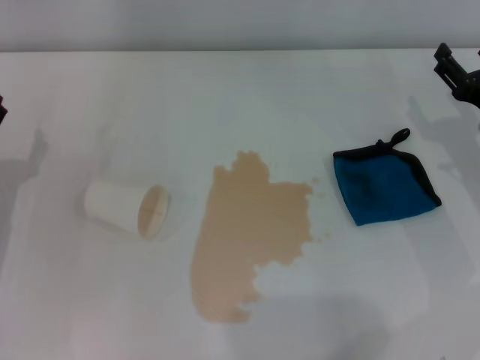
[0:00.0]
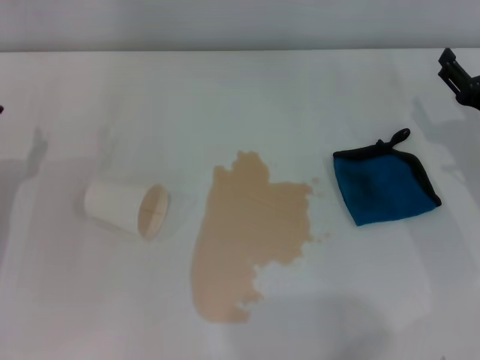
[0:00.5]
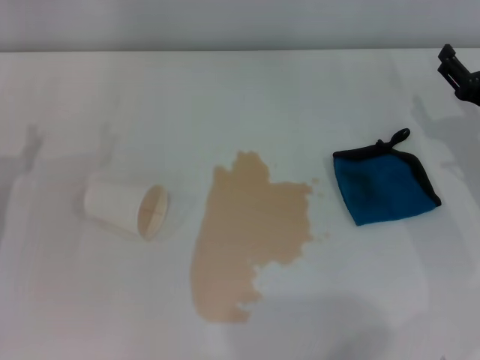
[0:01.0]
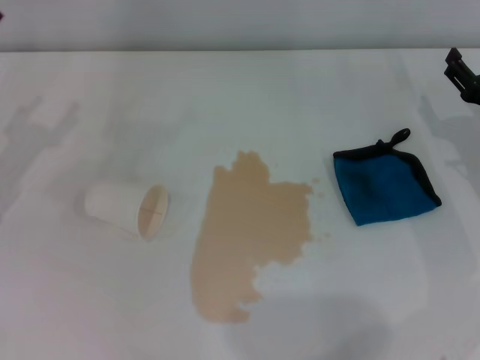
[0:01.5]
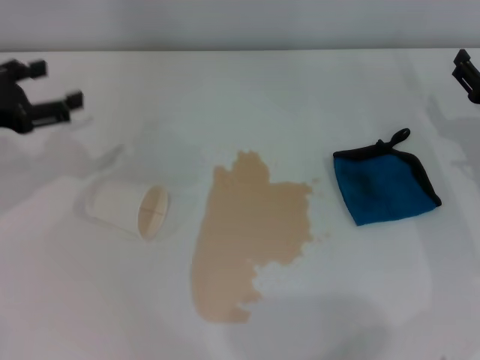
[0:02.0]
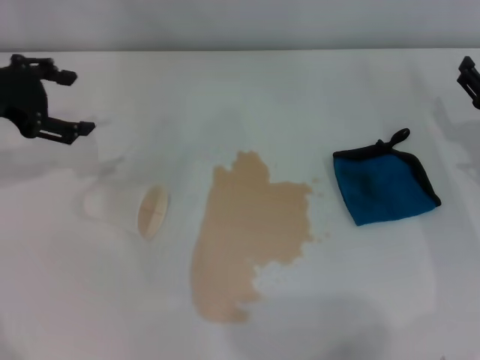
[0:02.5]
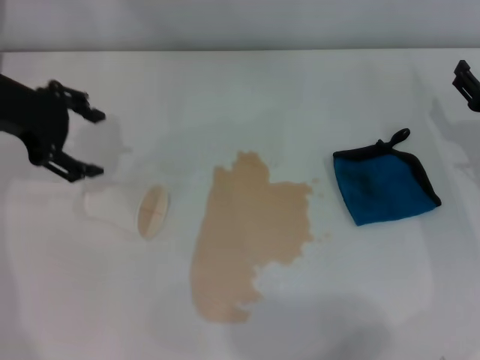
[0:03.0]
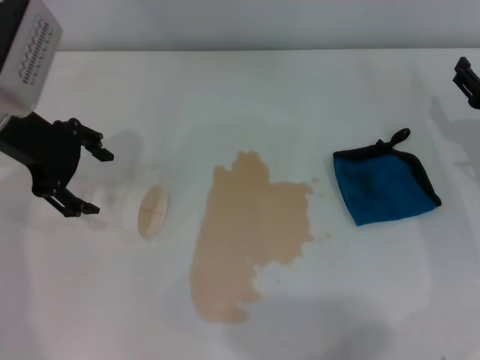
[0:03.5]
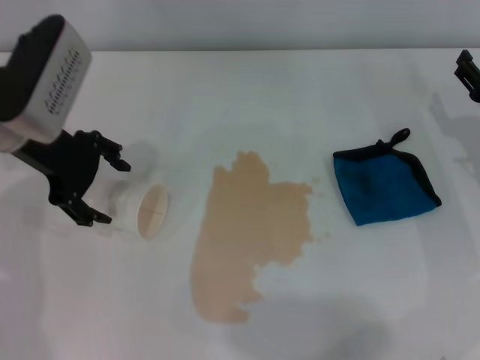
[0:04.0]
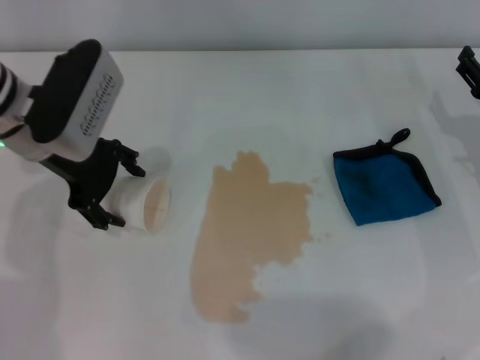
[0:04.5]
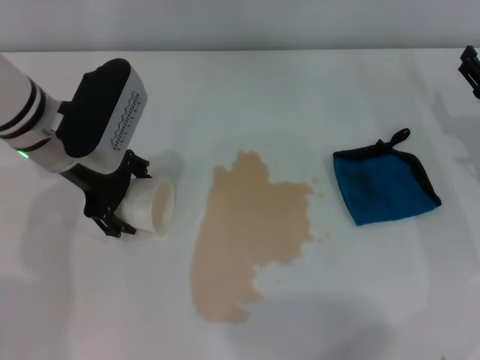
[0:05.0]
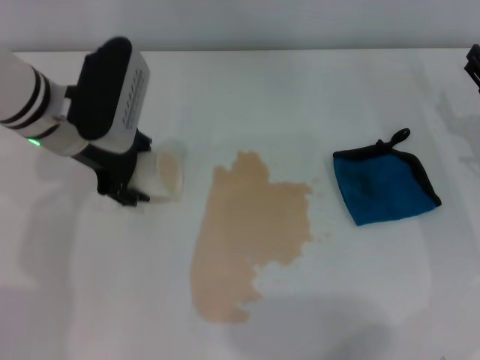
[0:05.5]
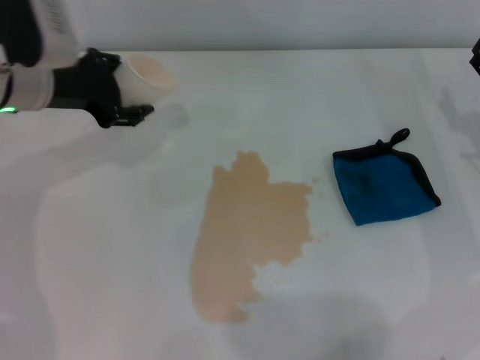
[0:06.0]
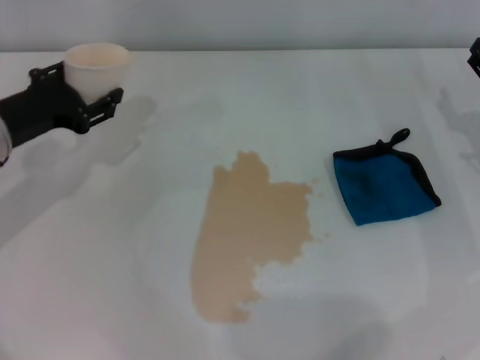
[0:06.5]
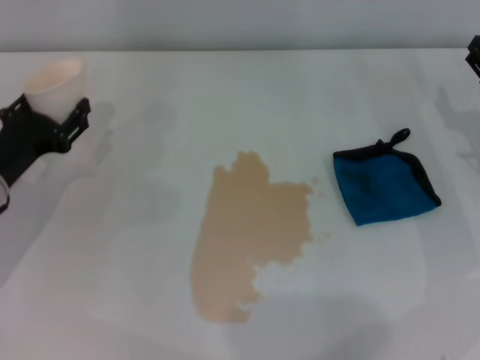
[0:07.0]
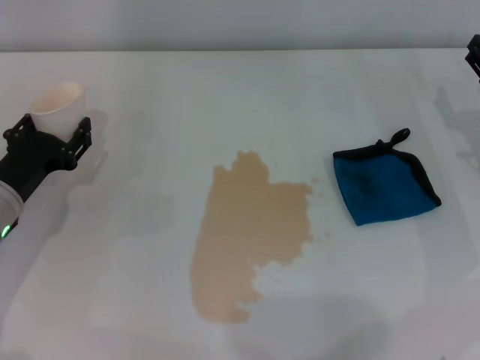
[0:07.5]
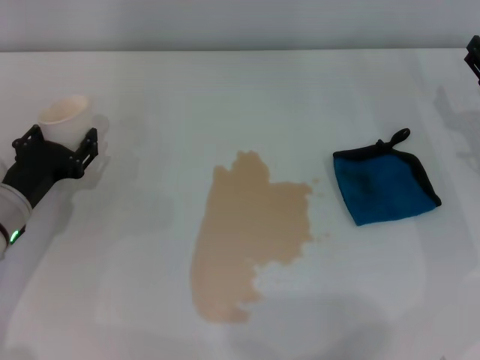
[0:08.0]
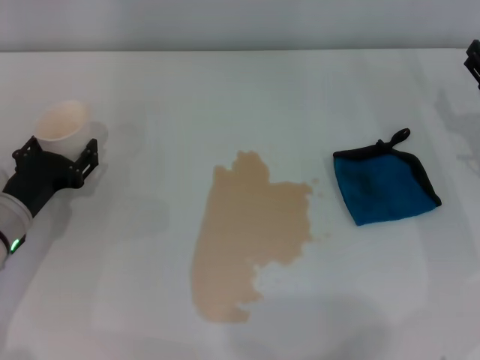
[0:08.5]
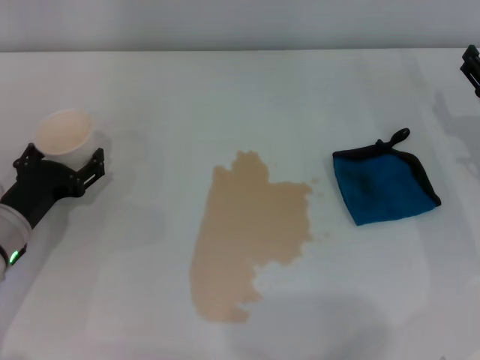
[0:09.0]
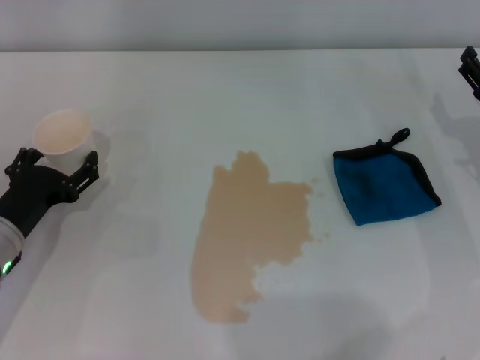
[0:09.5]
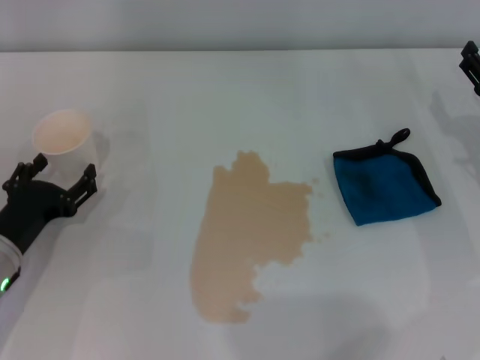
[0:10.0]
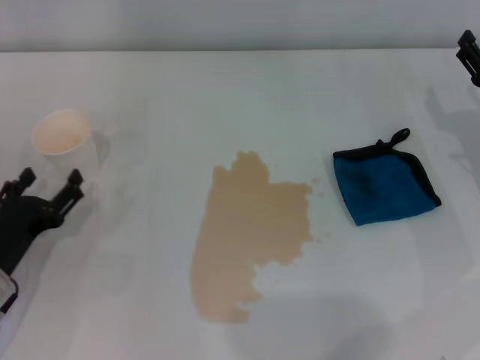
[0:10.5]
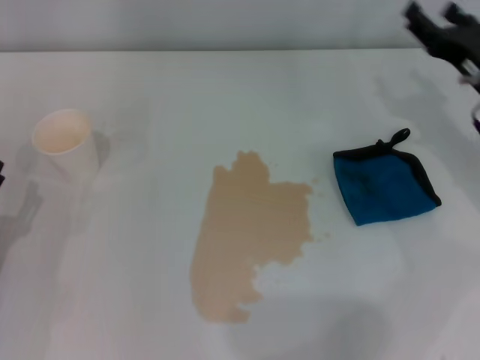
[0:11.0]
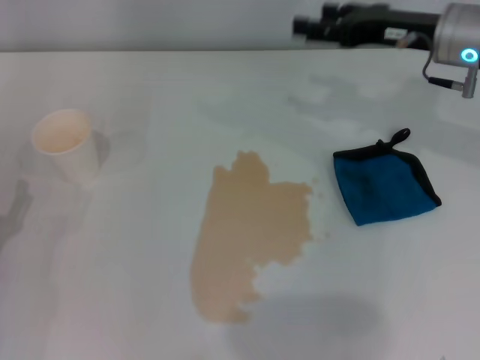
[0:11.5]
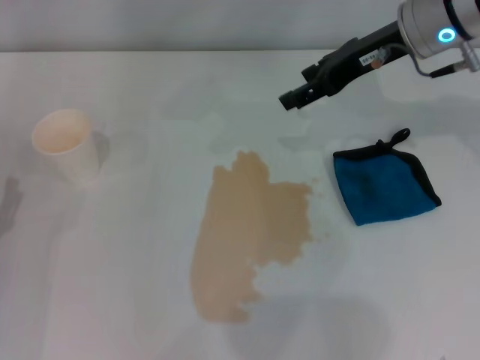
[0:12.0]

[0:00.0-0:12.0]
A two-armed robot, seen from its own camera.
Step, 0:00.0 to 0:05.0: Grasp the paper cup with the left gripper.
Step, 0:05.5 to 0:08.5: Stand the paper cup upright with the left gripper.
0:00.0 to 0:02.0: The left gripper heads upward and forward, covering roughly 10 cm.
0:02.0 to 0:04.0: The left gripper moves to the right, about 10 cm.
0:04.0 to 0:06.0: The left gripper closes up.
0:06.0 to 0:08.0: The left gripper shifts approximately 15 cm downward and backward.
0:08.0 to 0:10.0: The left gripper changes place by approximately 5 cm, and opens up.
0:10.0 to 0:12.0: The right gripper travels upward, to the left and forward by some 20 cm; the left gripper is displaced backward by about 5 cm.

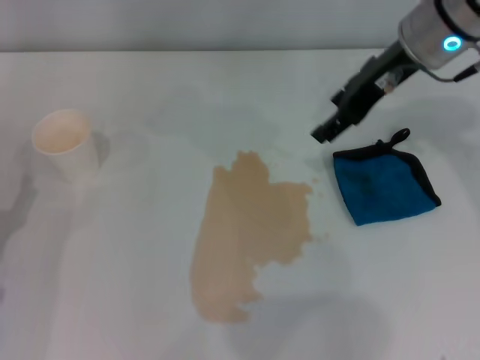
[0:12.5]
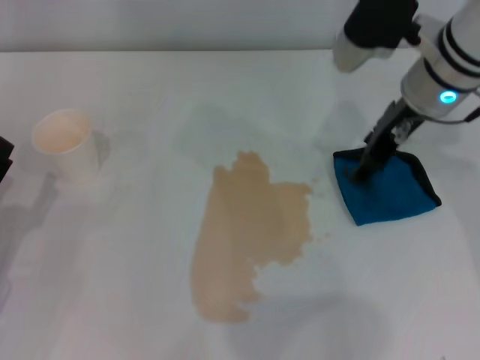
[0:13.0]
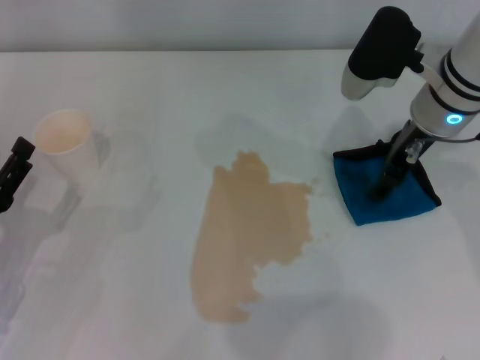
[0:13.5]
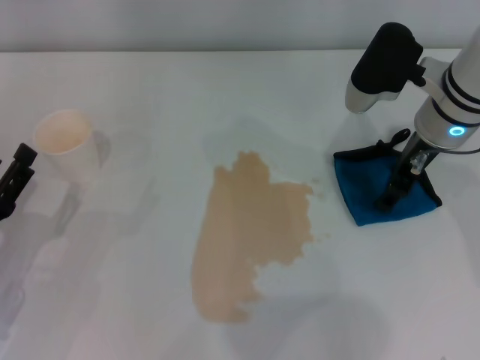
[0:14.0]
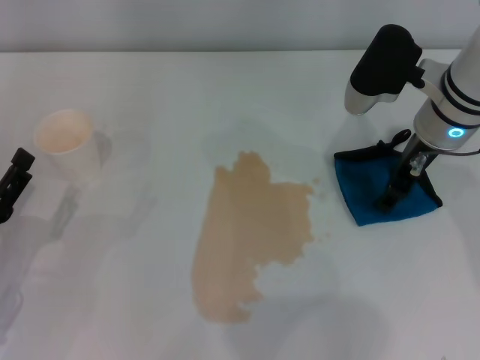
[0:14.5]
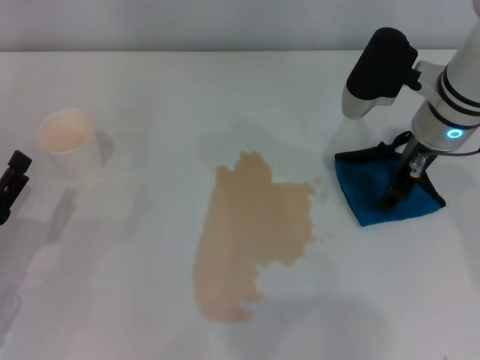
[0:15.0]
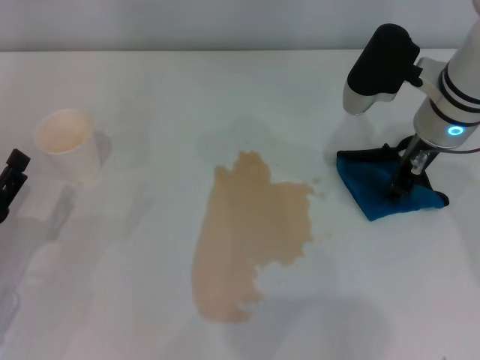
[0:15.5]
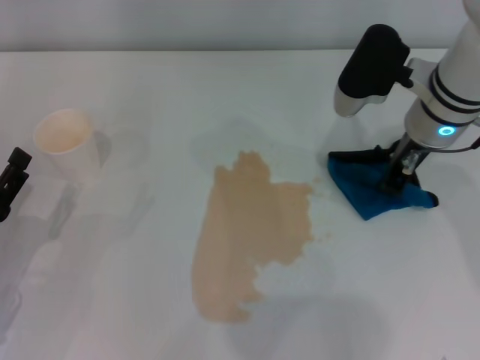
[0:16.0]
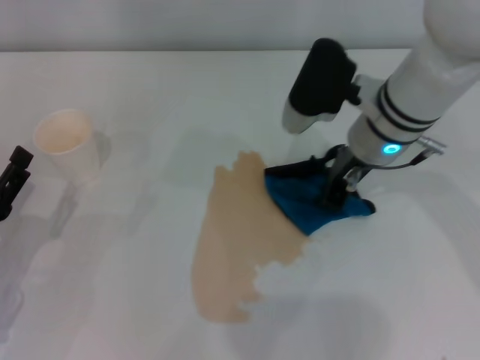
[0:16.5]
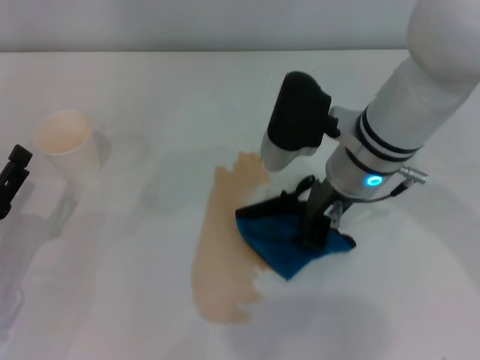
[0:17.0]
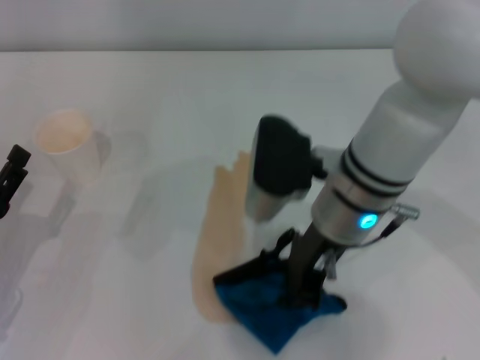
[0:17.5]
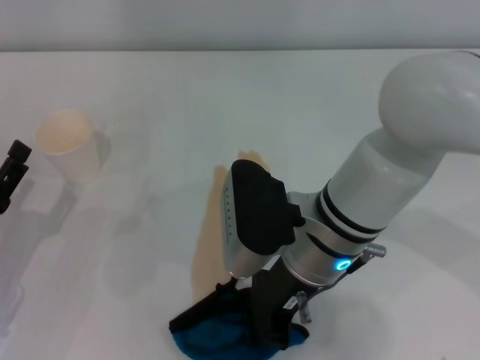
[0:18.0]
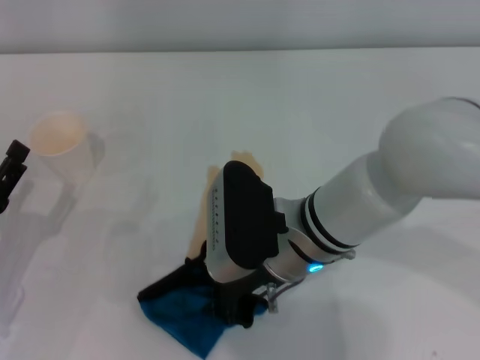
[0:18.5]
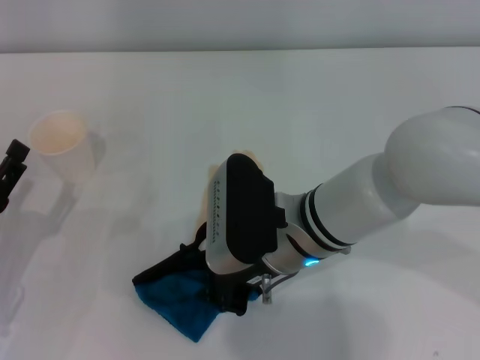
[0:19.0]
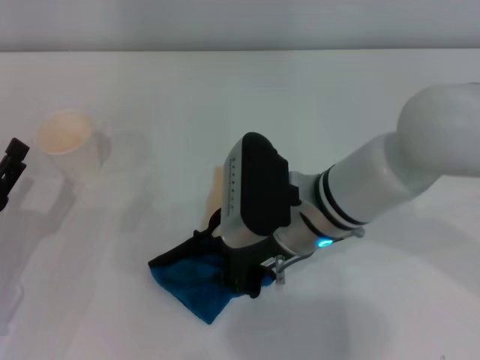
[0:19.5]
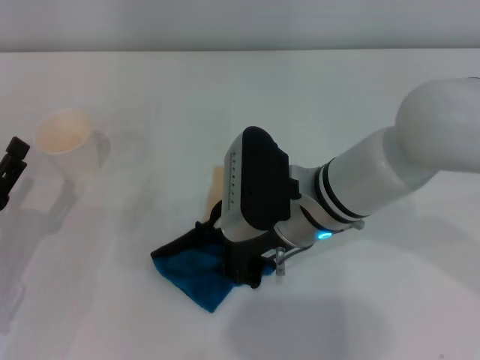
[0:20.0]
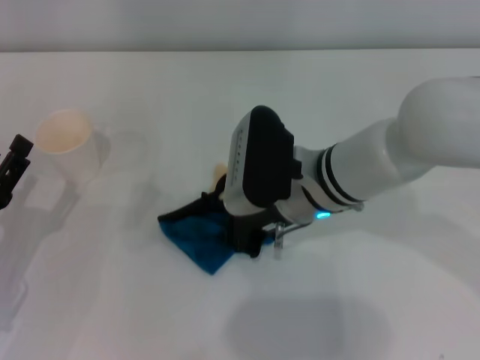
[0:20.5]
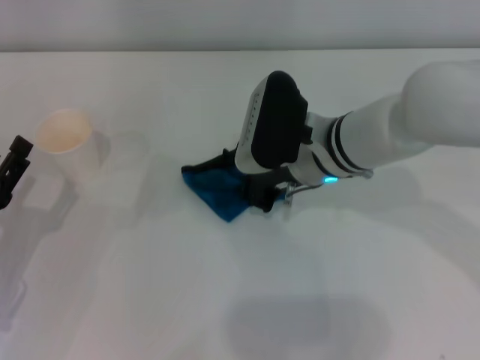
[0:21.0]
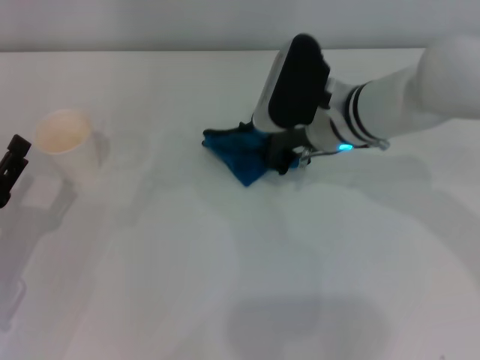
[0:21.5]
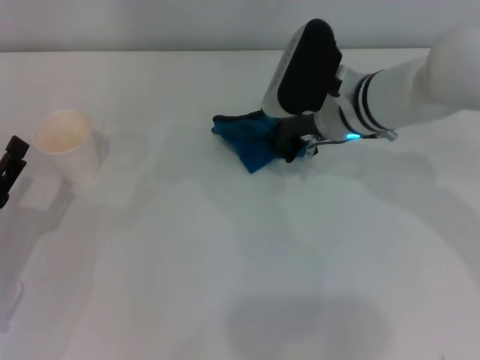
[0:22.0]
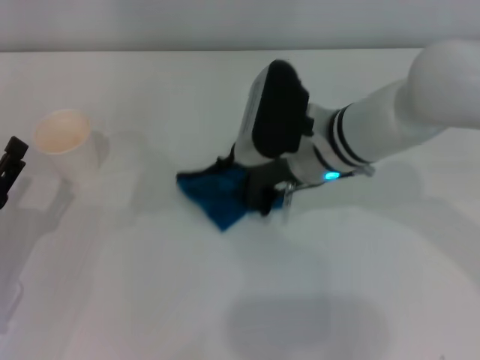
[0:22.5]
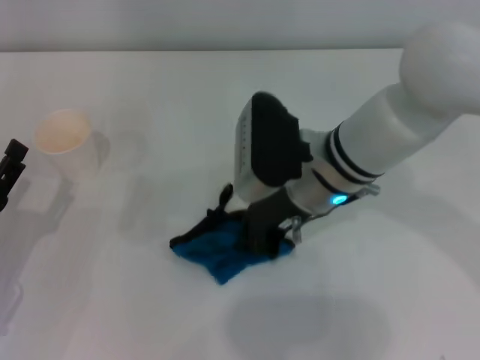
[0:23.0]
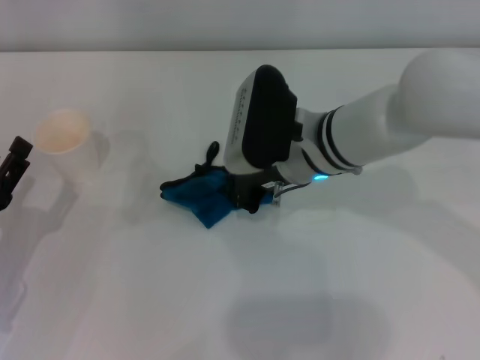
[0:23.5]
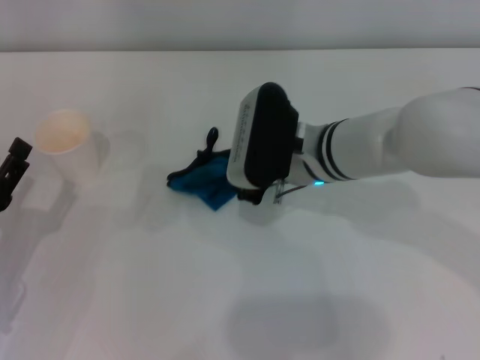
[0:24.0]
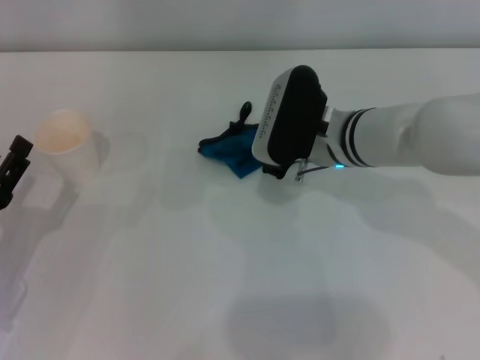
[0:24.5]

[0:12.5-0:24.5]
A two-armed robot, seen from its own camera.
Step, 0:12.5 to 0:15.5: Grasp the rag with the right gripper.
0:12.5 to 0:14.5: The right gripper heads downward, covering about 10 cm.
0:14.5 to 0:16.5: The right gripper moves to the left, approximately 5 cm, and closes up.
0:16.5 to 0:18.5: The right gripper is displaced backward and to the left by some 15 cm.
0:18.5 to 0:20.5: The right gripper shifts by some 5 cm.
0:22.5 to 0:24.5: The grippers make only small movements.

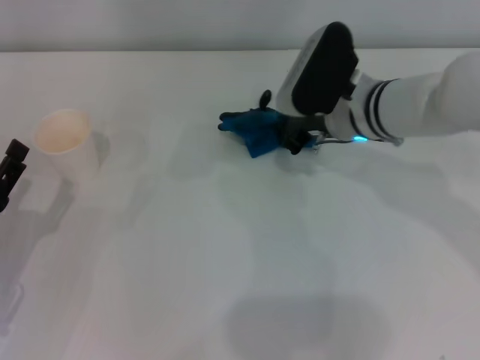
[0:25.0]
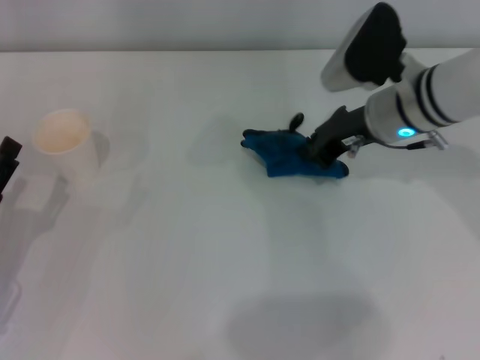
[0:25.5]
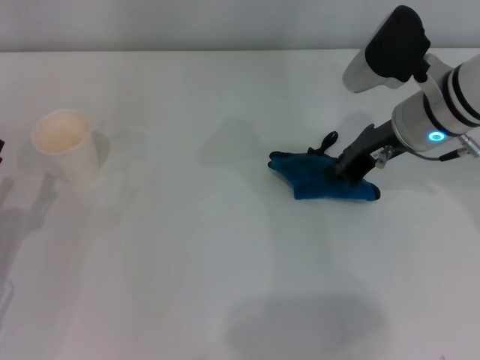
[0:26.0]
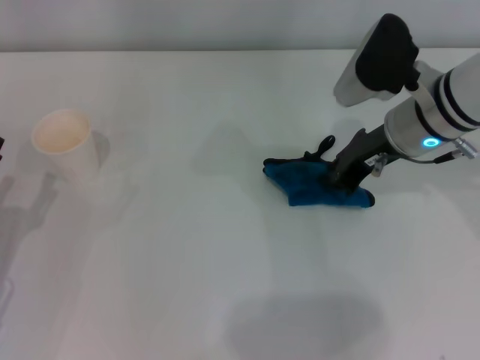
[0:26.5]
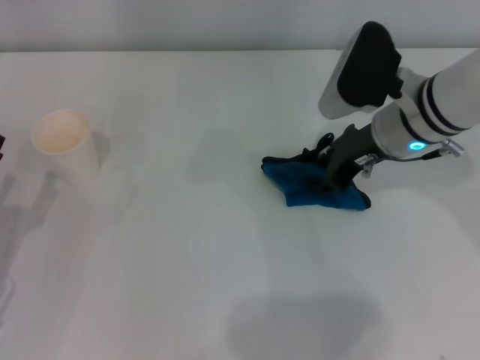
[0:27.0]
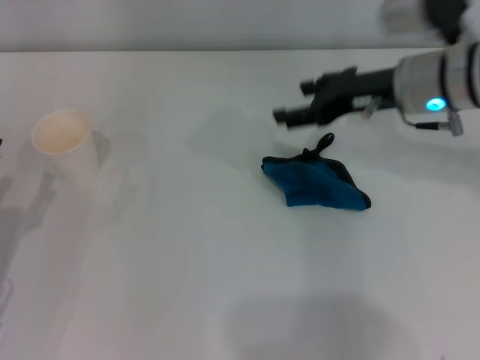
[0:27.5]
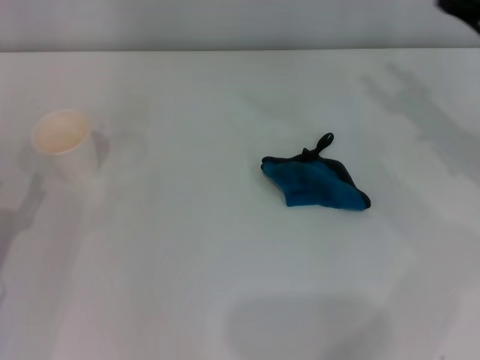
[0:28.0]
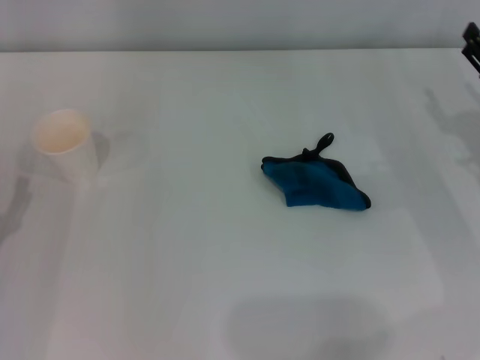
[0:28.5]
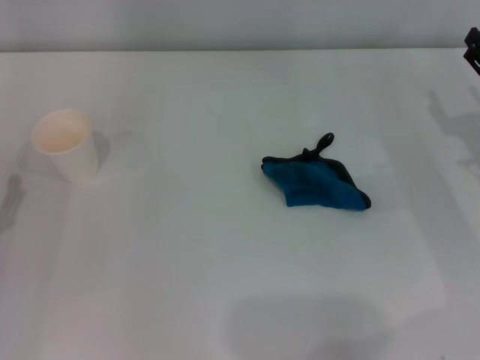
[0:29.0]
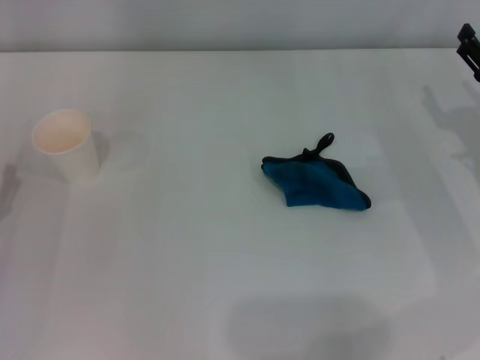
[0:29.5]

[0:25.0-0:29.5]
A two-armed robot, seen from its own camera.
0:27.0 to 0:29.5: The right gripper travels to the right by some 15 cm, and opens its fingers.
